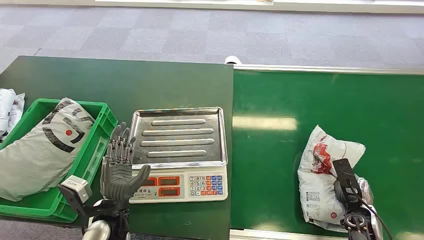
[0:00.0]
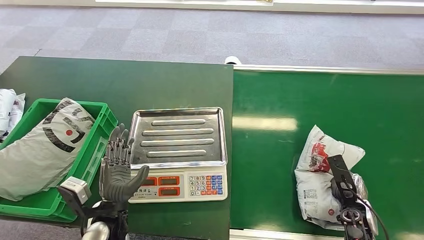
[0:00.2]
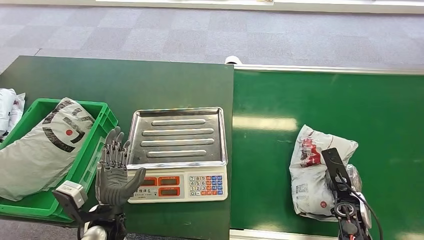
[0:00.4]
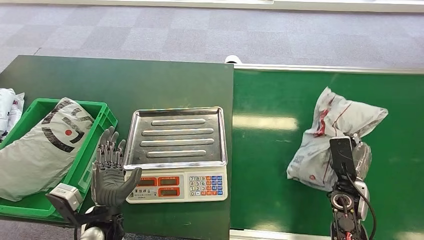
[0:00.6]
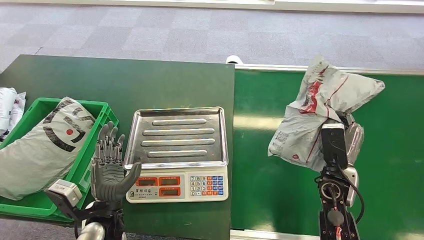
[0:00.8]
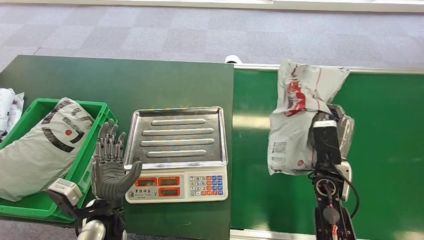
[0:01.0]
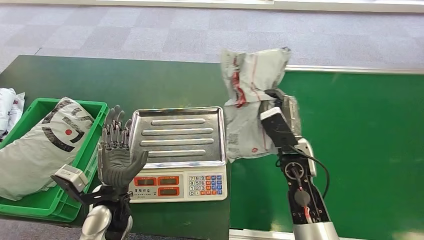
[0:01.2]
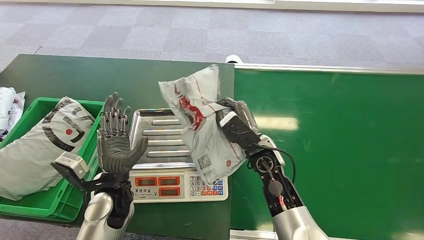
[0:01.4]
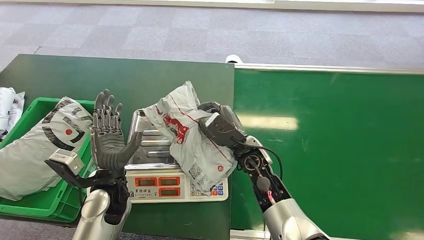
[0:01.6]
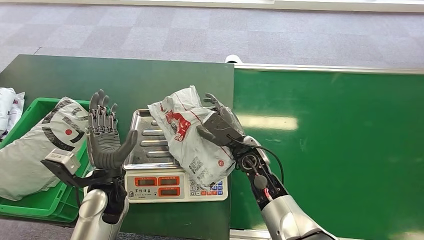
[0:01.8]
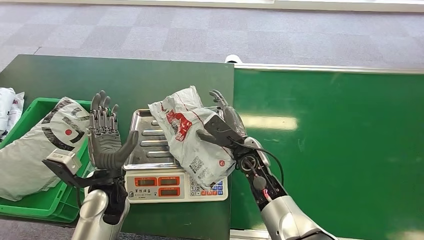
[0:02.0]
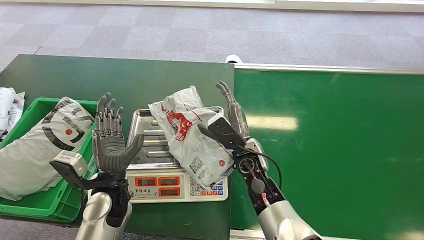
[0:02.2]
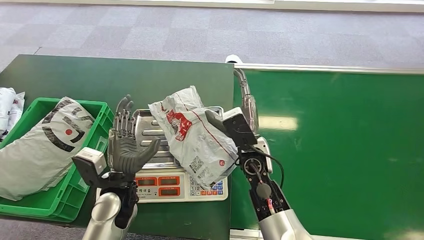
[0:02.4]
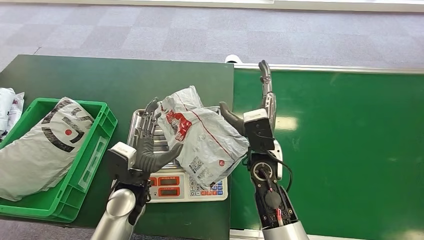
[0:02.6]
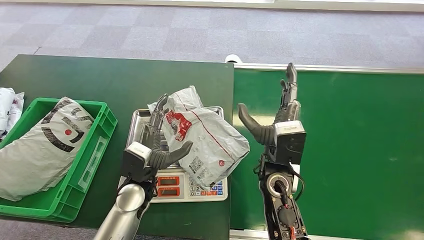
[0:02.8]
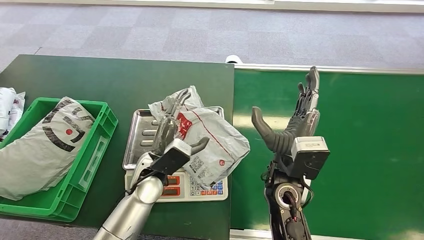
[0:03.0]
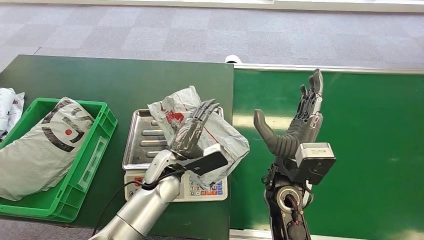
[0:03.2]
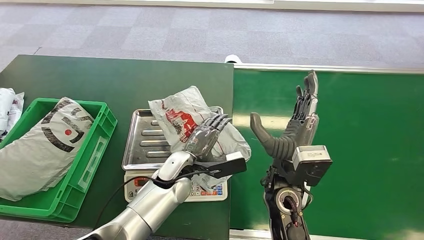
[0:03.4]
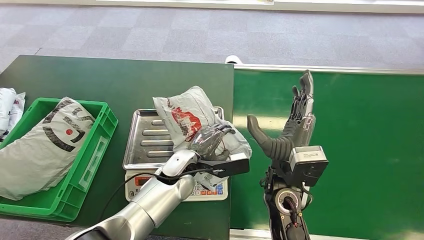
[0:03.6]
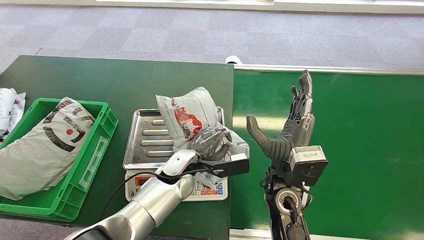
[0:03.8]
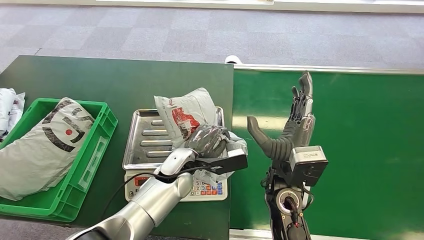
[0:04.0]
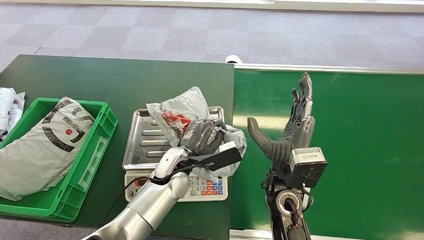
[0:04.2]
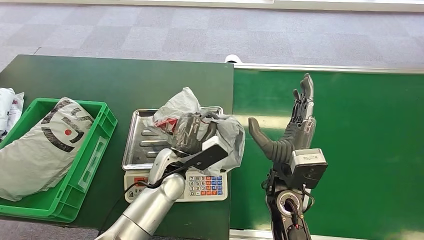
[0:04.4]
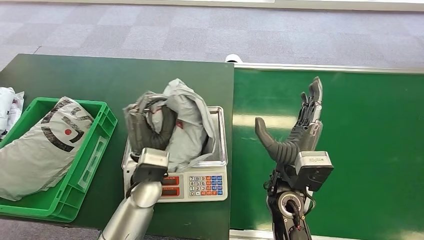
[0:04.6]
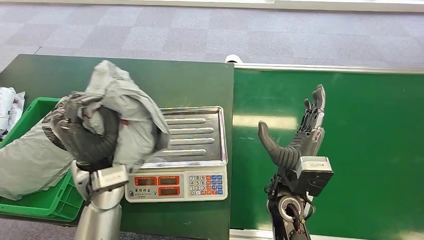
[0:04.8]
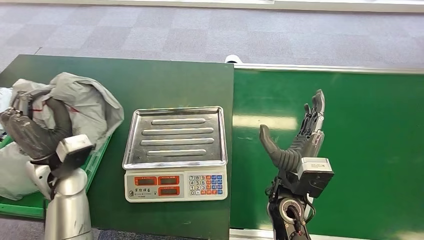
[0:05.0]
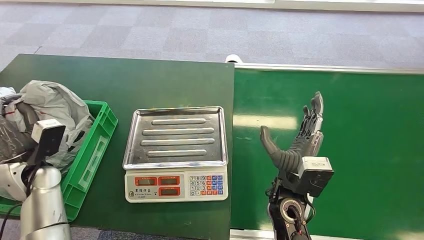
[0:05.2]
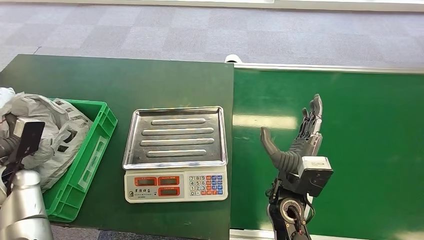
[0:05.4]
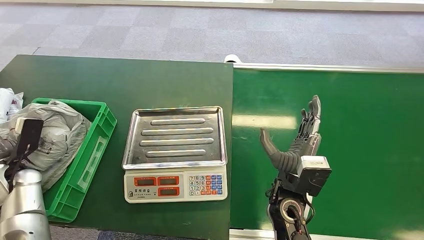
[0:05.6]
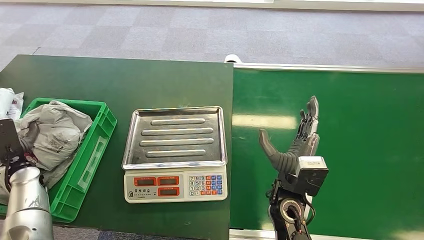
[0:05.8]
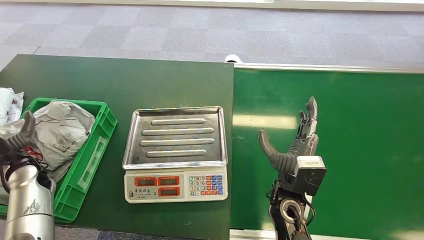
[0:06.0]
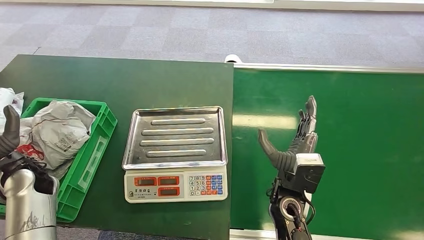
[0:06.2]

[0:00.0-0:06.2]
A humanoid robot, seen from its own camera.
Step, 0:00.0 to 0:01.0: Pick up the package from the conveyor belt.
Step, 0:01.4 to 0:02.4: Place the package onto the inbound machine.
Step, 0:03.8 to 0:04.8: Pick up the package from the inbound machine.
Step, 0:05.0 to 0:06.2: Place the package into the parcel locker.
0:01.6 to 0:03.2: The right hand is displaced backward and upward by approximately 10 cm. Meanwhile the left hand is displaced to the right and forward by roughly 10 cm.
0:03.2 to 0:04.6: The left hand goes some 5 cm upward.
0:04.6 to 0:06.2: The left hand is displaced to the left by roughly 30 cm. The right hand ends up some 5 cm from where it was.
